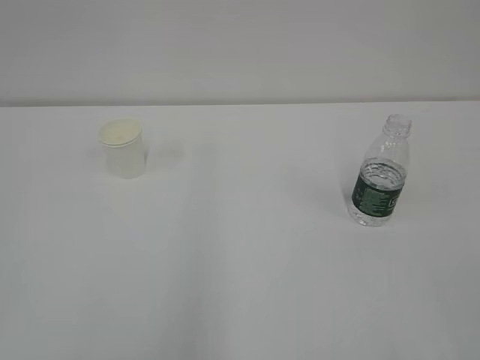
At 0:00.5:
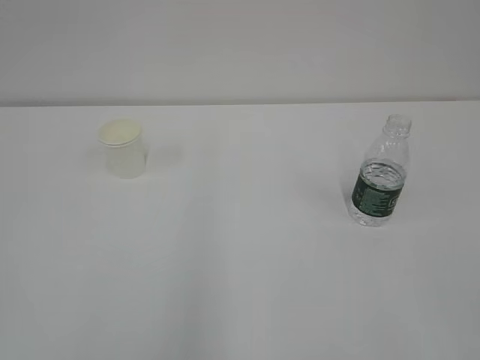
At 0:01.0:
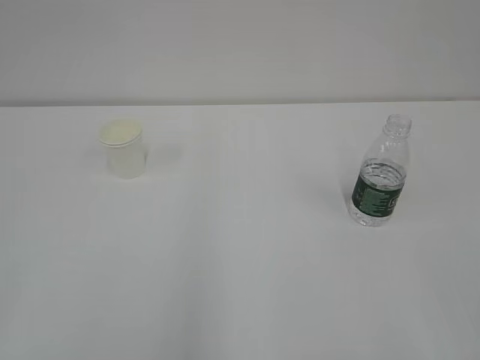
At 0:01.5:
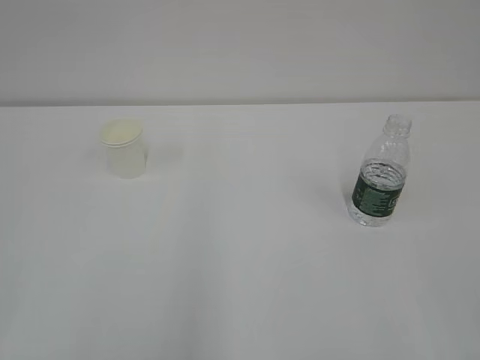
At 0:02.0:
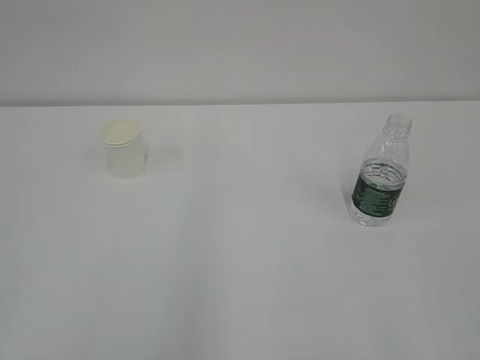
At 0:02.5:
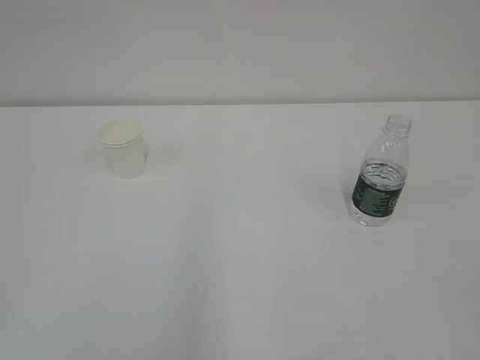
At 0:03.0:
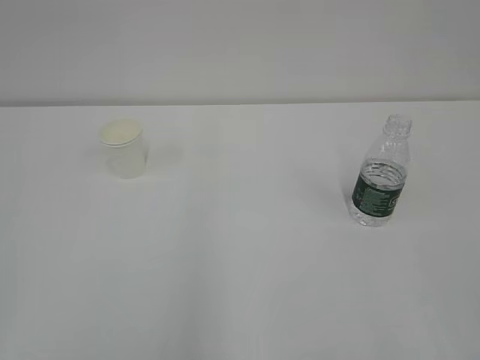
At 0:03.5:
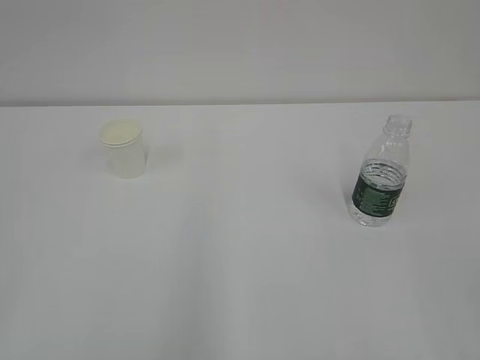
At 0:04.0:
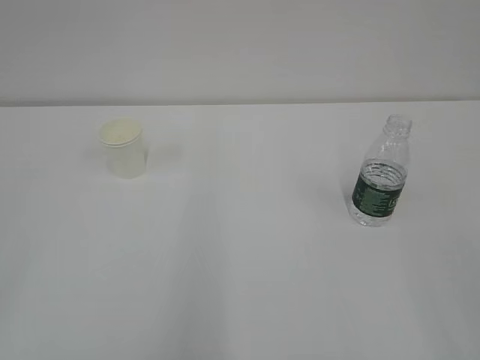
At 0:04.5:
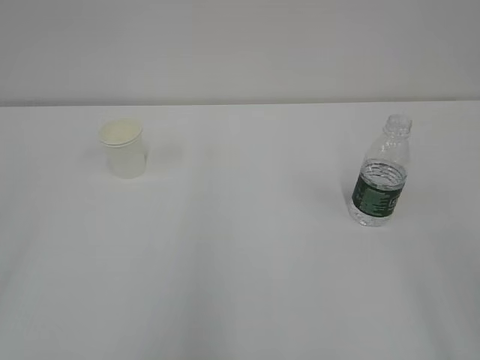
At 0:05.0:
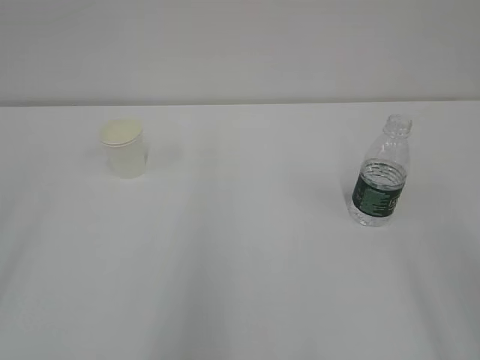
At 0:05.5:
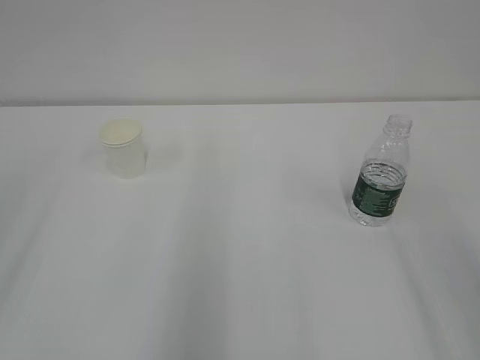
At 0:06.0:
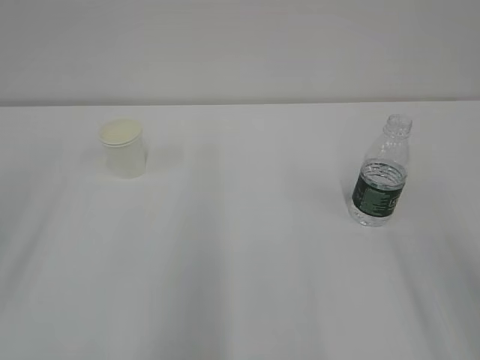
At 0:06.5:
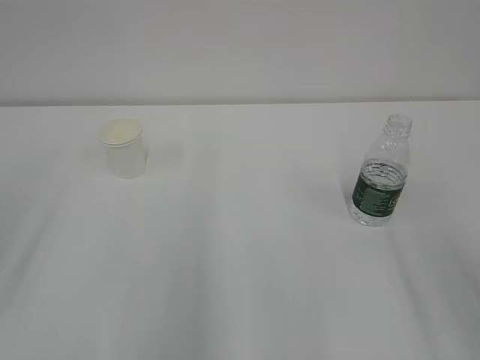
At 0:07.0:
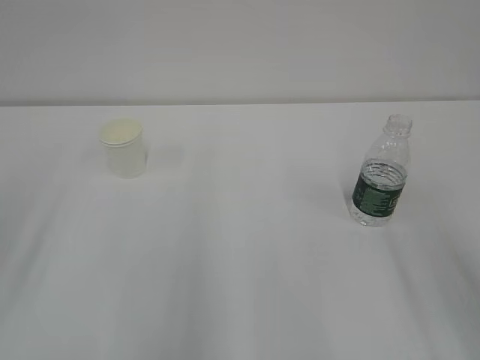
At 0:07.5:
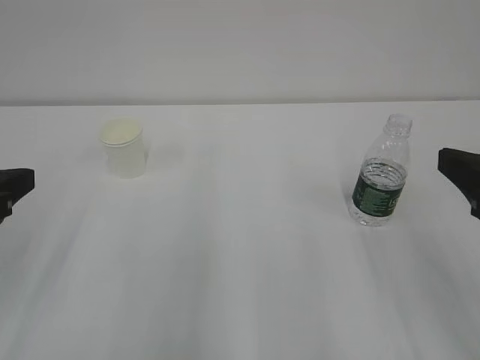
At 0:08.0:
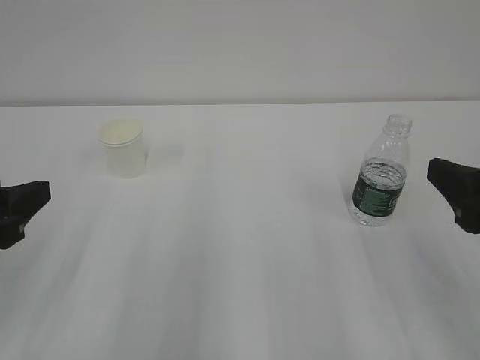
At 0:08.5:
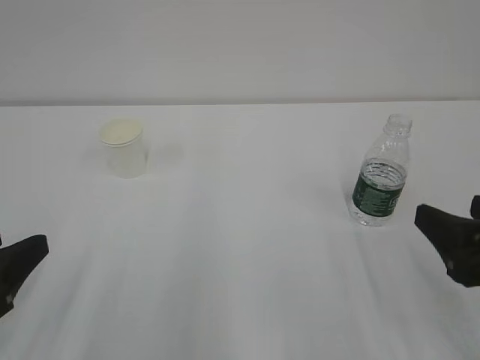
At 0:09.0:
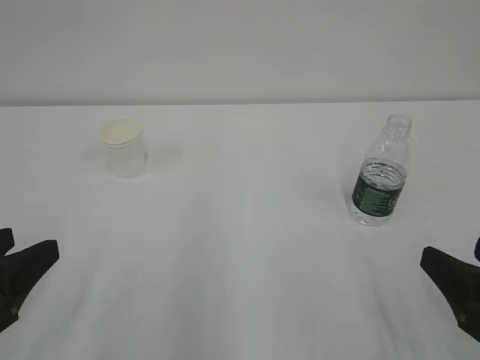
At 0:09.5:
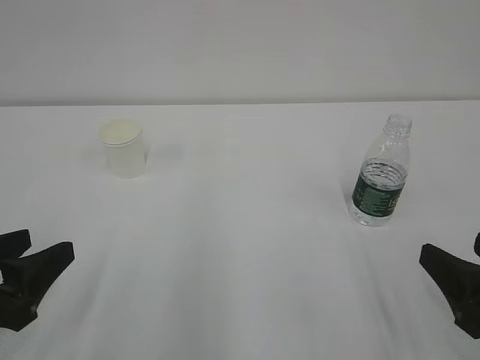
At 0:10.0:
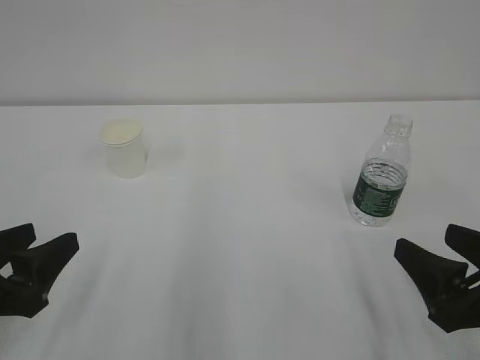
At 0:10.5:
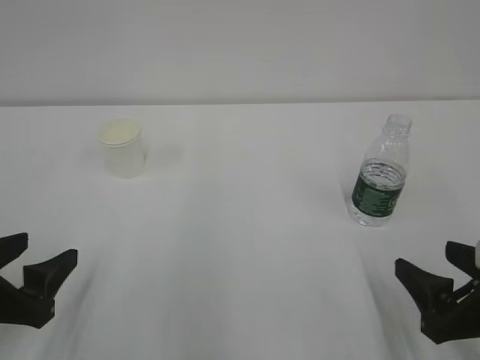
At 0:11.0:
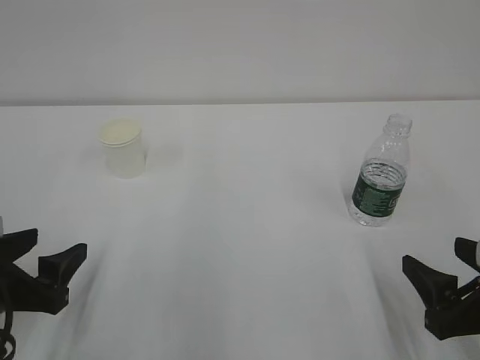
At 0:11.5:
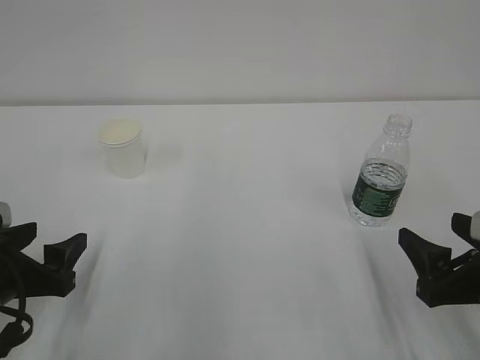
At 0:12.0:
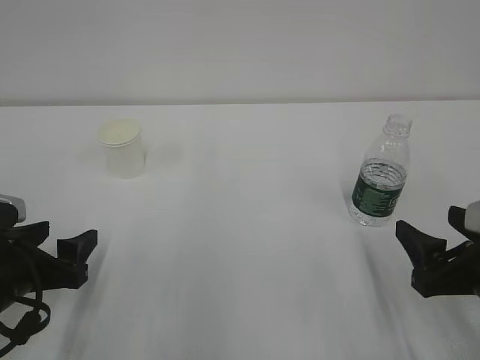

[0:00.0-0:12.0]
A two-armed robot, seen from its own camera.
0:06.0 to 0:08.0: The left gripper goes about 10 cm downward. The right gripper heads downward and forward, covering approximately 10 cm.
0:08.0 to 0:10.0: The grippers both shift downward by some 10 cm.
0:10.0 to 0:12.0: The left gripper goes approximately 5 cm forward, and opens its fingers.

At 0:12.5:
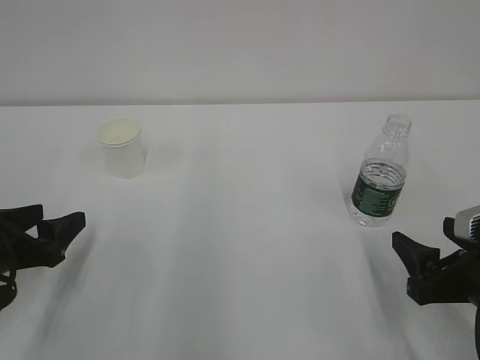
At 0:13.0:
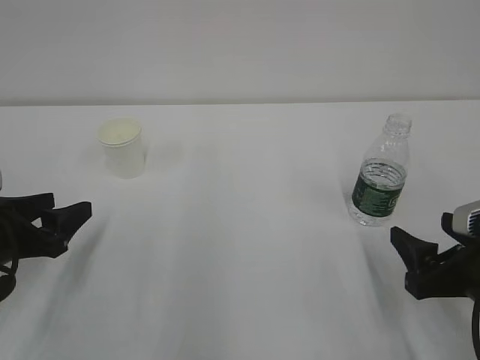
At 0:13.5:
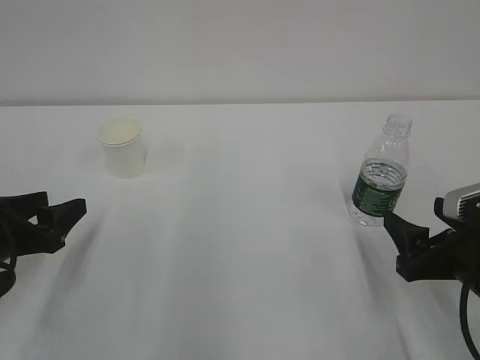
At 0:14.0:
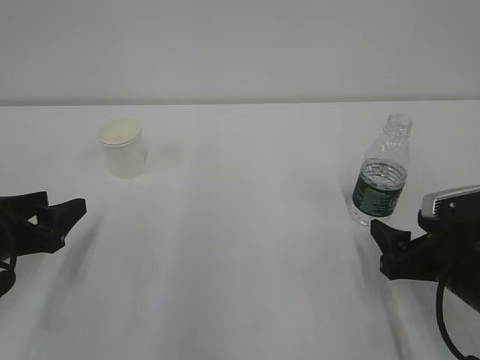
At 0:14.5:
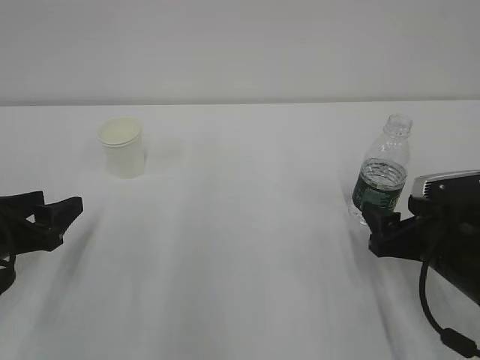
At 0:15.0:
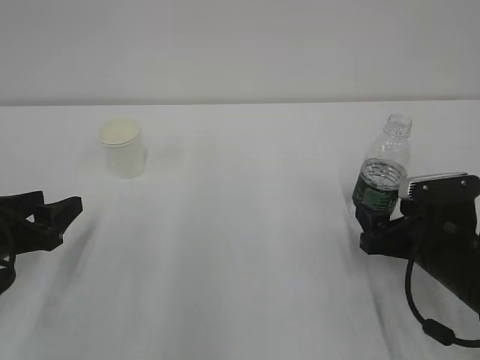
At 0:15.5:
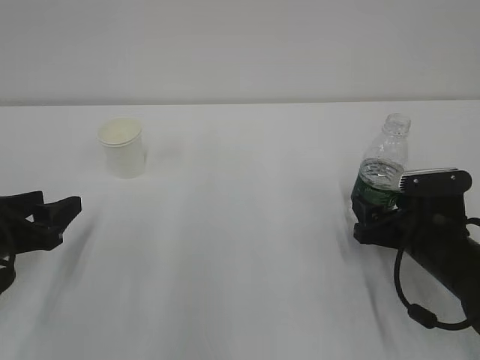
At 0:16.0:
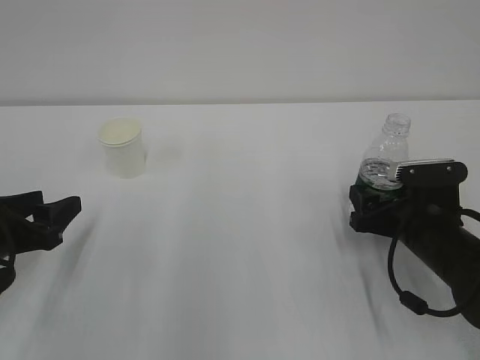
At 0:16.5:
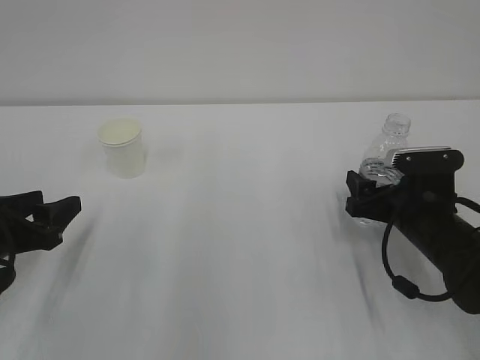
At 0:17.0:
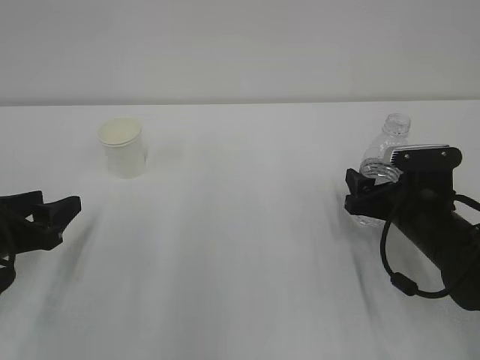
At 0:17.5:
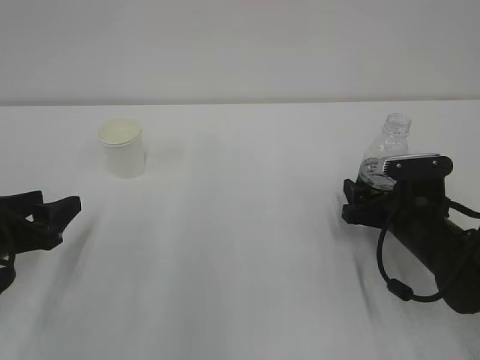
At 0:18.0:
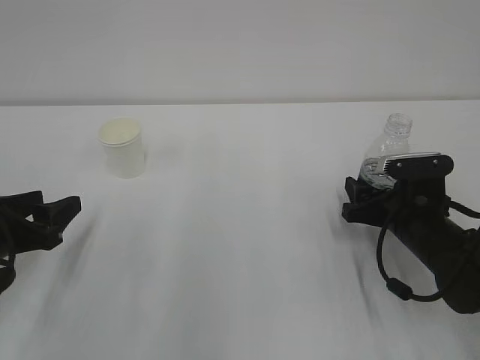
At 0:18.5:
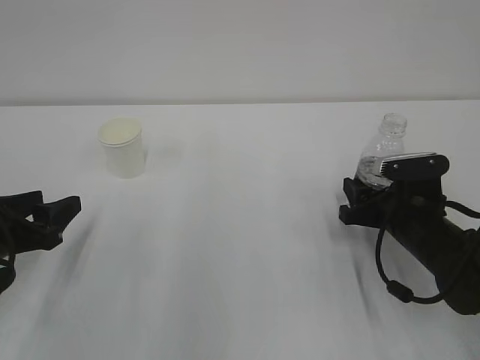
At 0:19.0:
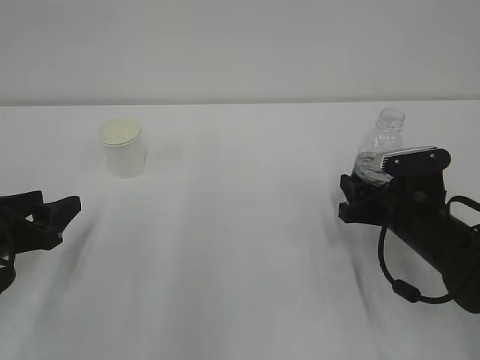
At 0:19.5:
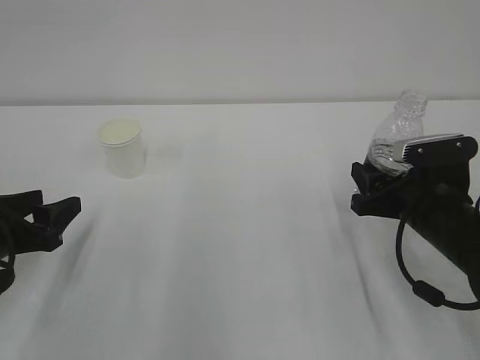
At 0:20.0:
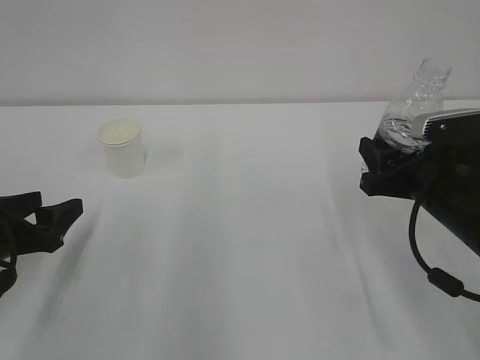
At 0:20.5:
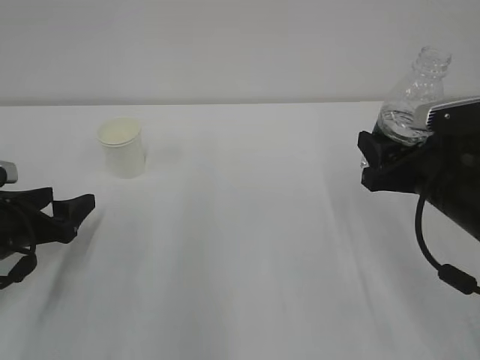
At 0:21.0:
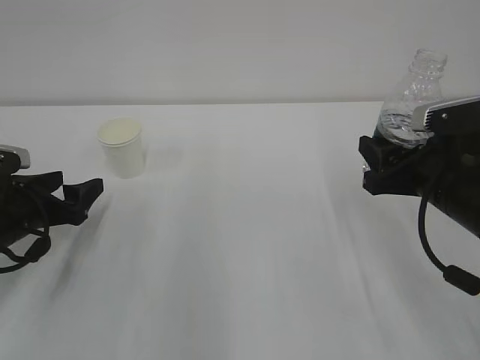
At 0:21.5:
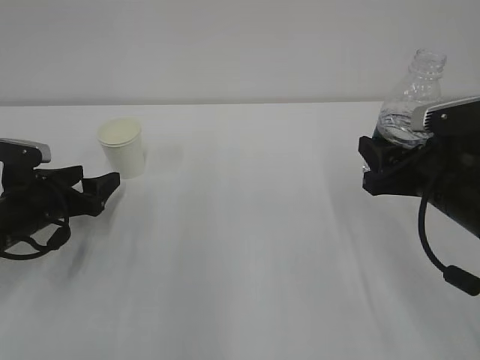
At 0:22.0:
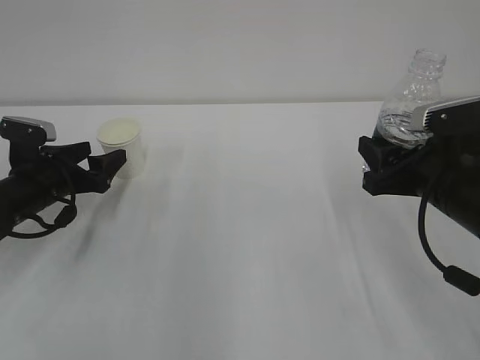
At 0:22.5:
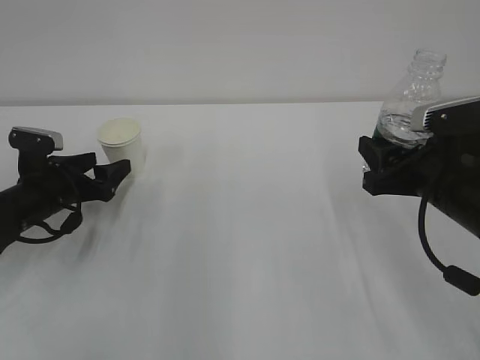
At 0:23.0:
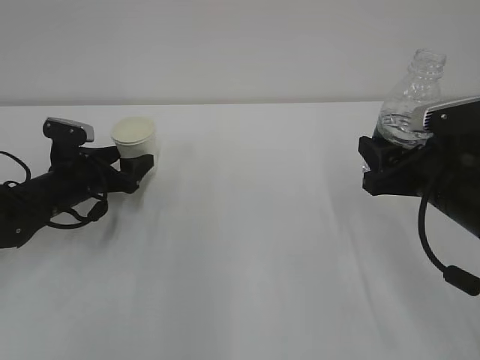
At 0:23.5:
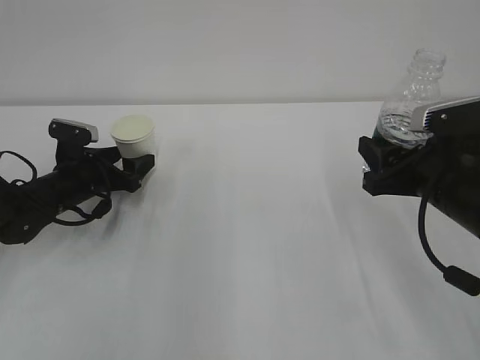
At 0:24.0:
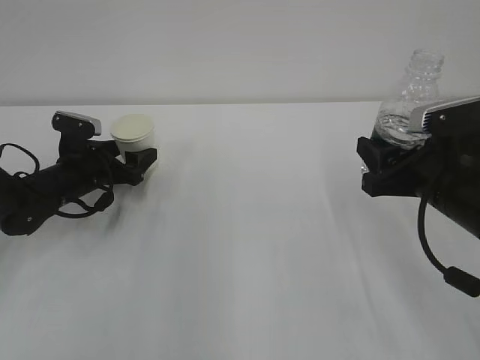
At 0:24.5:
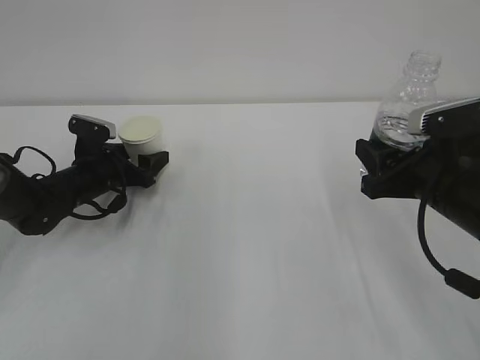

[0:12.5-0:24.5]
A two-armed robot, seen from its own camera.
0:12.5 to 0:14.5: The right gripper moves forward, about 5 cm.
0:14.5 to 0:16.5: The right gripper travels forward by roughly 5 cm.
0:16.5 to 0:18.5: The right gripper closes up.
0:18.5 to 0:20.5: The right gripper moves upward, approximately 10 cm. The left gripper opens up.
0:20.5 to 0:22.5: The left gripper moves forward, about 10 cm.
0:22.5 to 0:24.5: The left gripper moves forward, some 5 cm.

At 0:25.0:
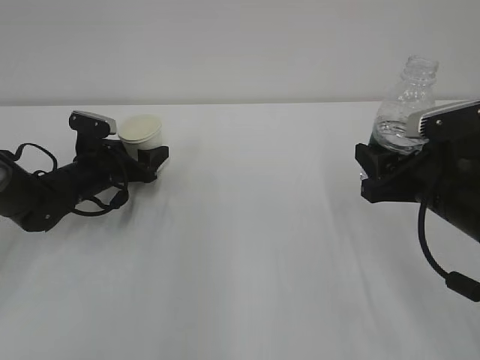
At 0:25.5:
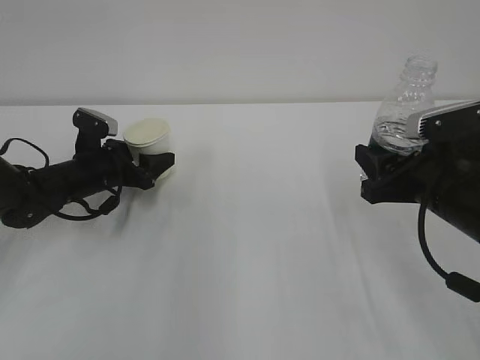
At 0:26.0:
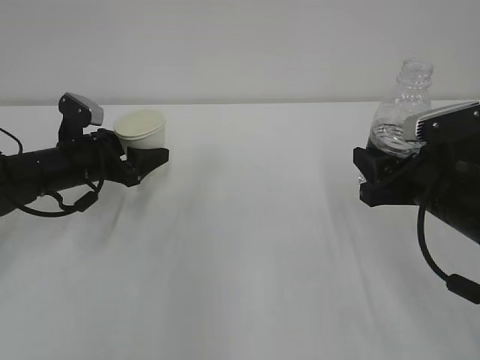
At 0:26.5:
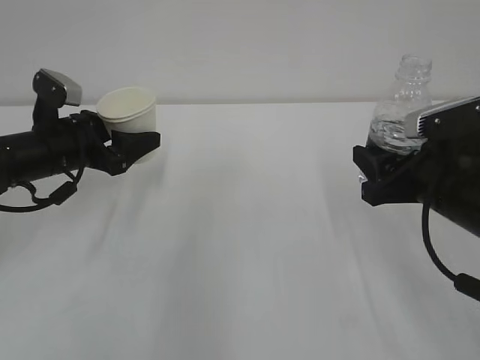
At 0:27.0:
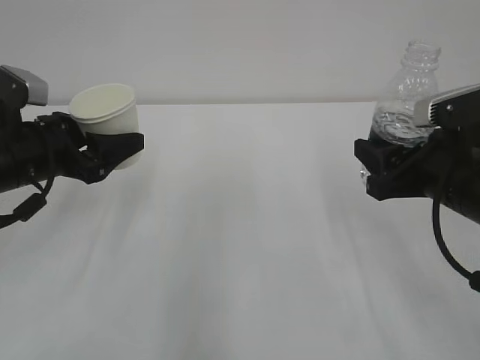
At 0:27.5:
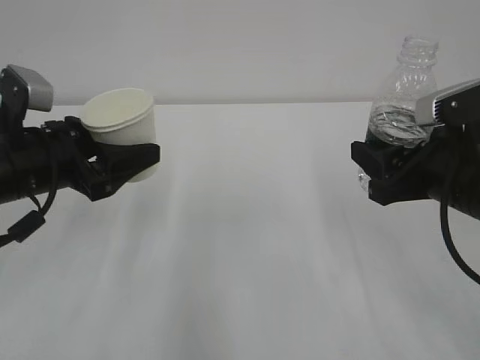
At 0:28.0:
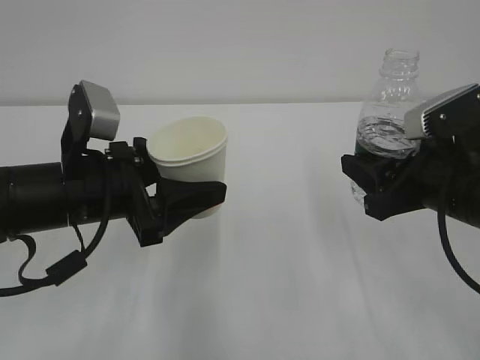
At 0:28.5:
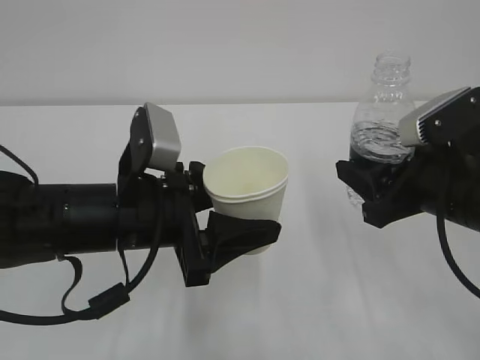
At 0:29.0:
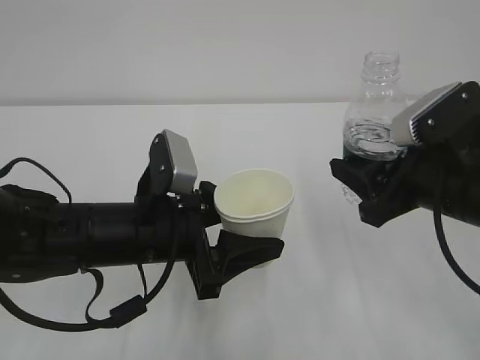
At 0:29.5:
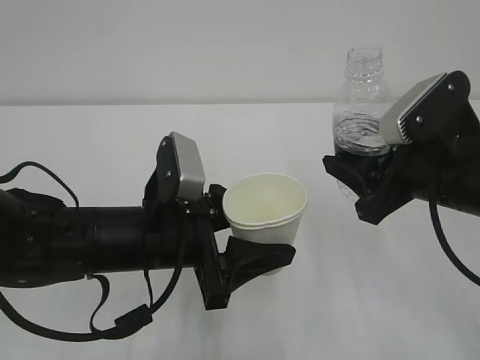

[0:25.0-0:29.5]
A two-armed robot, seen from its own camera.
0:25.0 to 0:27.0: The left gripper is displaced upward and backward by roughly 15 cm.
0:27.0 to 0:29.5: The left gripper moves to the right and backward, approximately 15 cm.
